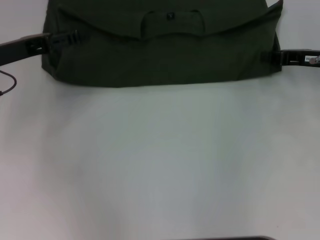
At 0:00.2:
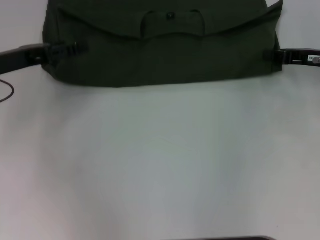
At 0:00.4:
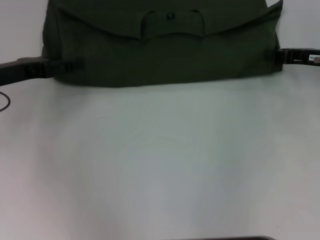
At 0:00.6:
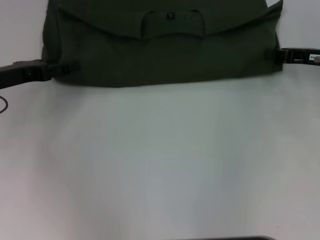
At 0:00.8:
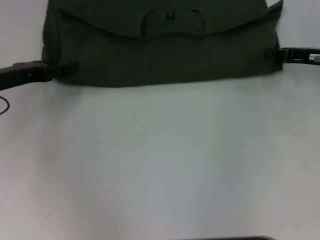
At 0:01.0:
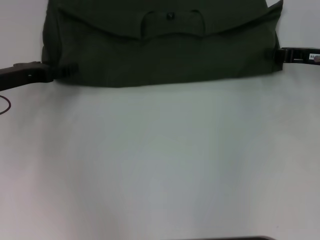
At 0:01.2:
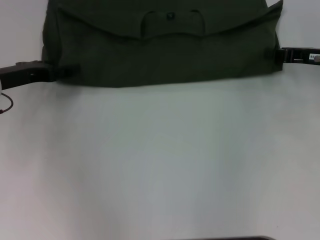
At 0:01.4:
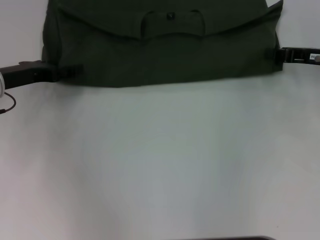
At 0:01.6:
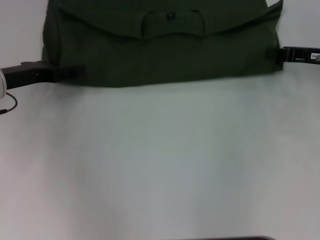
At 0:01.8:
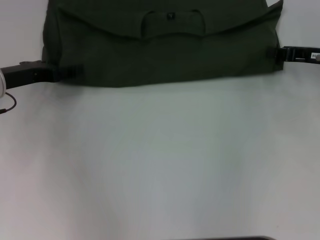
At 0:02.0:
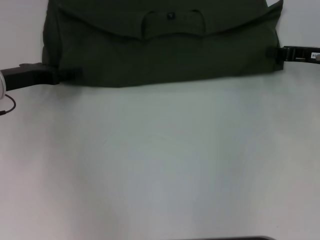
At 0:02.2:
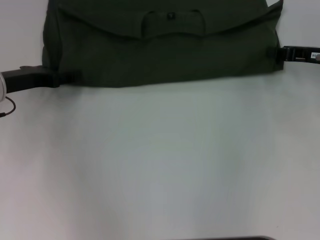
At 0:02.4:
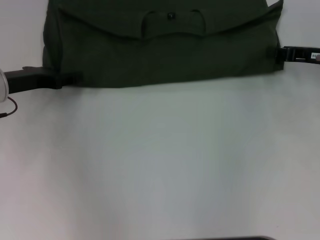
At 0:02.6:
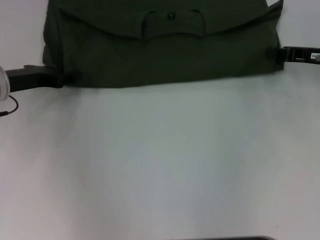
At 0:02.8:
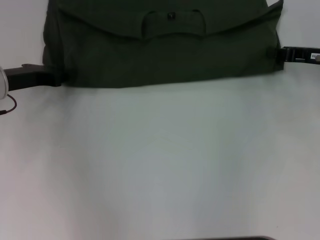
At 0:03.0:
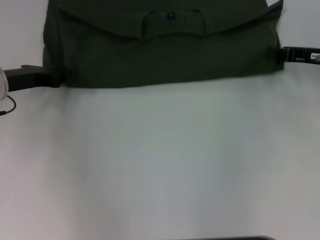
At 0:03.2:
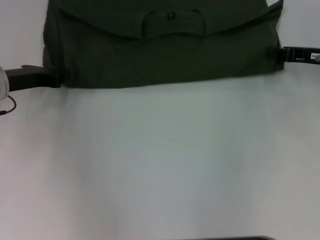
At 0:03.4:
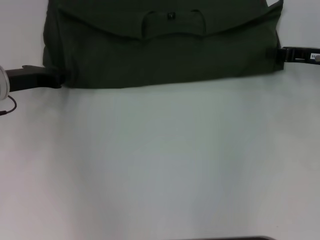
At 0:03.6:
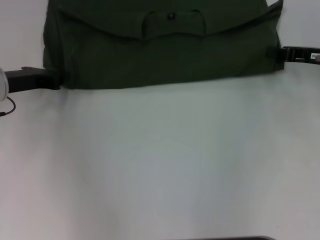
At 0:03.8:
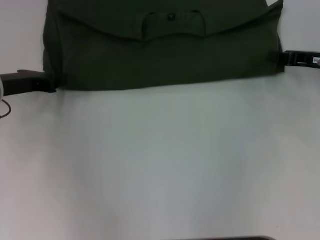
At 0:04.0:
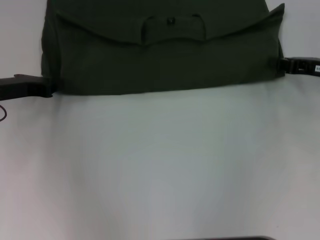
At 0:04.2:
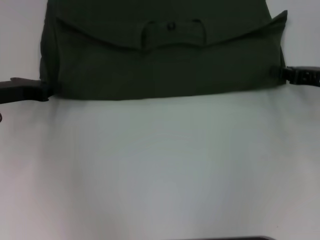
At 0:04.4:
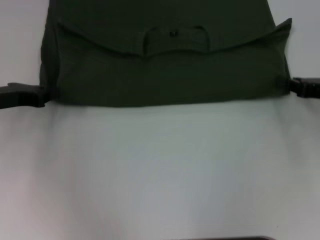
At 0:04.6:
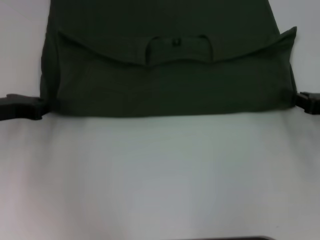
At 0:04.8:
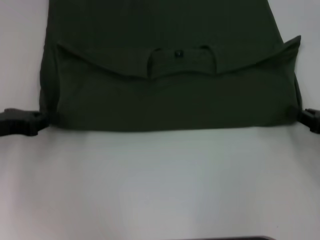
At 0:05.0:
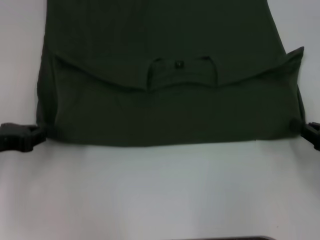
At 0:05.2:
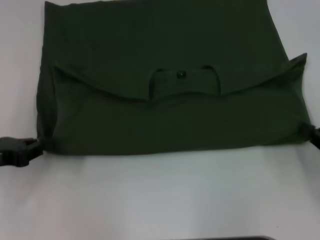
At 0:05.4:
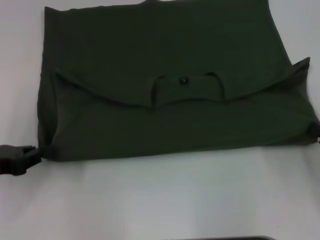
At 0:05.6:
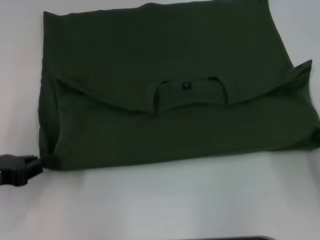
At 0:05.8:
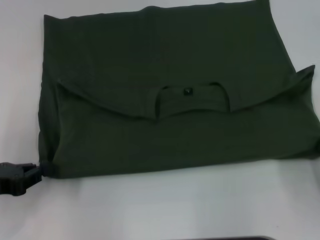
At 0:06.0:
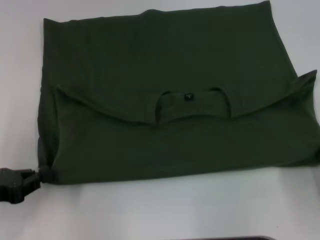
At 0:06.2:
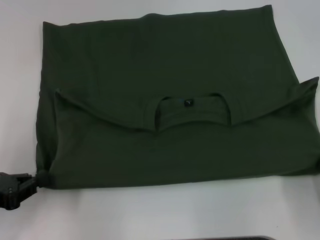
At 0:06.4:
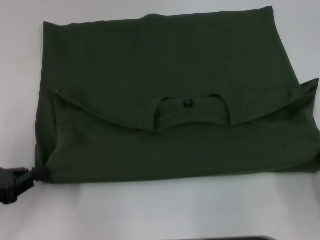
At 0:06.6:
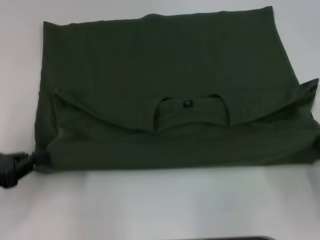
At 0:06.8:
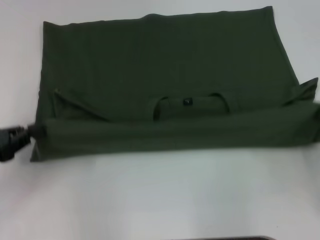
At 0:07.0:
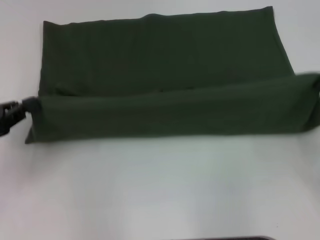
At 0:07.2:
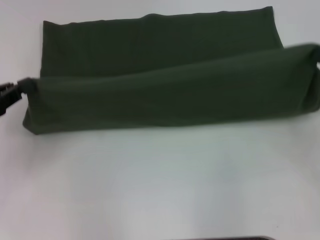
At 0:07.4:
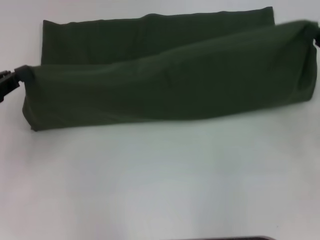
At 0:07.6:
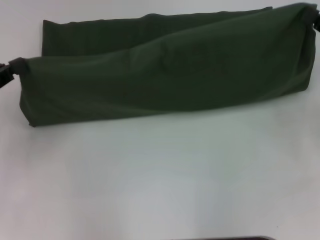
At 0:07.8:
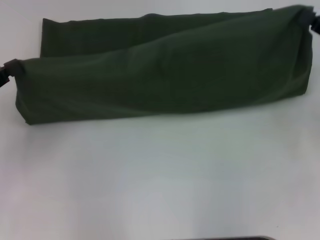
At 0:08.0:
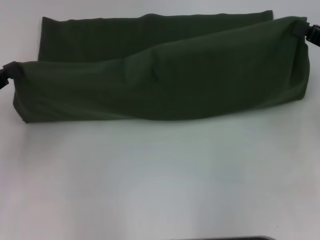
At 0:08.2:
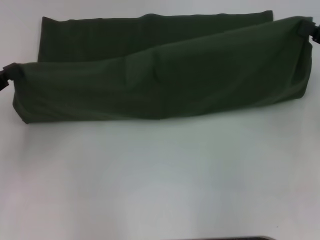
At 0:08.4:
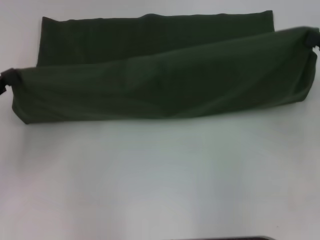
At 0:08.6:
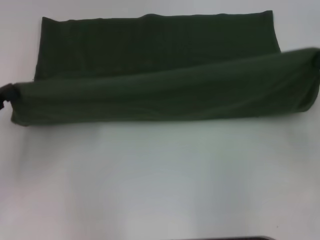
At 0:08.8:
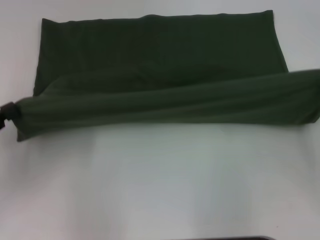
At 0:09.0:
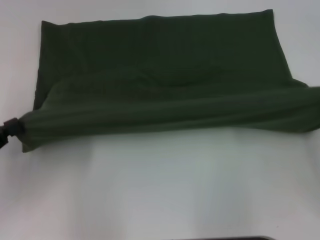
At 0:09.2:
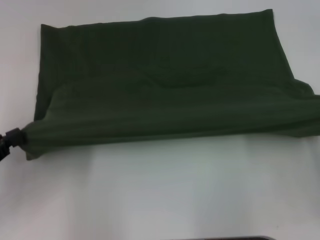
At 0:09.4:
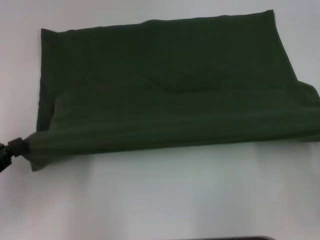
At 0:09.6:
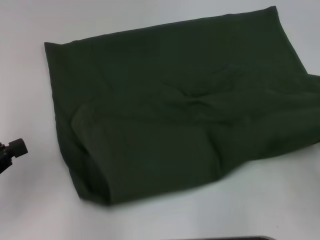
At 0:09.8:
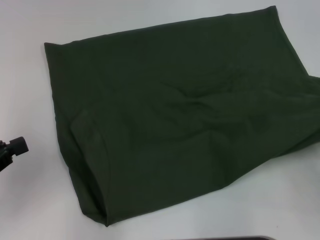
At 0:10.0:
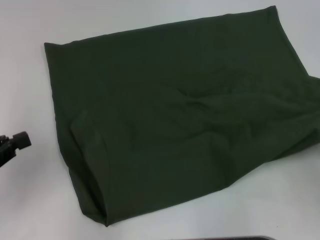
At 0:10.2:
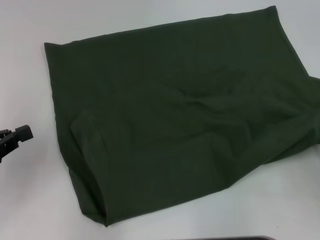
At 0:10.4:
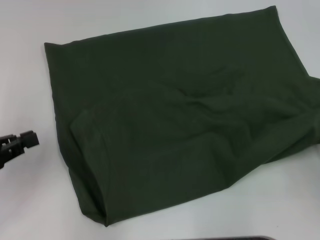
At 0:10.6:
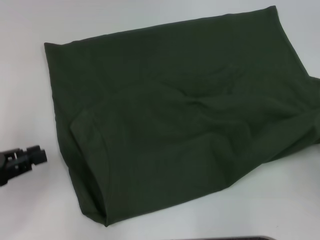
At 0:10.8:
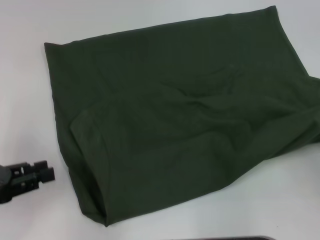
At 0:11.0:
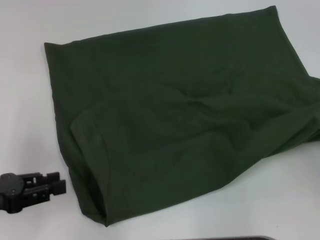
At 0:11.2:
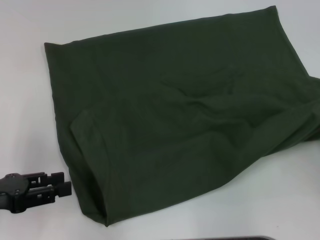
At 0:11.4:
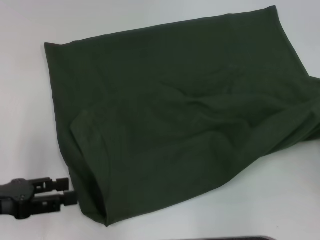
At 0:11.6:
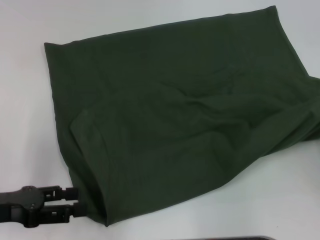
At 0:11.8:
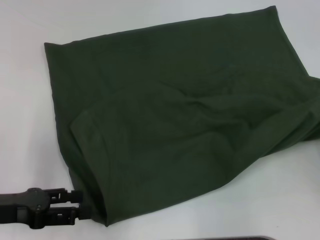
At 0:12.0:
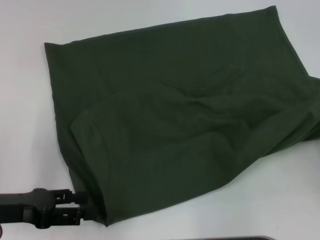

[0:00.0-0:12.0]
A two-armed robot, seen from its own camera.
Step, 0:00.0 to 0:06.0: Pull the clothes with your left hand.
Step, 0:00.0 to 0:06.0: Pull the clothes with your right hand.
0:00.0 to 0:01.6: There are only small adjustments of the grippers.
0:01.6 to 0:03.0: The left gripper closes up.
0:03.0 to 0:04.4: The left gripper closes its fingers; the right gripper goes about 5 cm backward.
0:04.4 to 0:06.0: Both grippers move backward, approximately 15 cm.
0:06.0 to 0:07.6: The left gripper shifts some 10 cm forward and upward. The right gripper goes approximately 20 cm forward and upward.
0:07.6 to 0:09.0: The right gripper goes roughly 10 cm backward; the left gripper heads backward, covering approximately 5 cm.
0:10.4 to 0:12.0: The left gripper heads to the right, covering roughly 5 cm, and opens its fingers.

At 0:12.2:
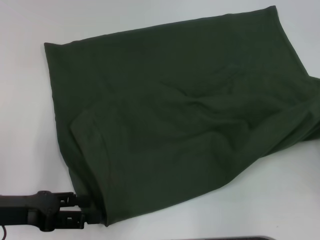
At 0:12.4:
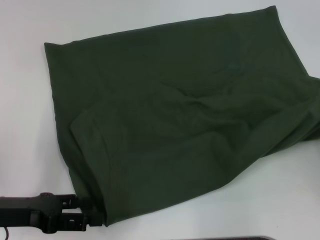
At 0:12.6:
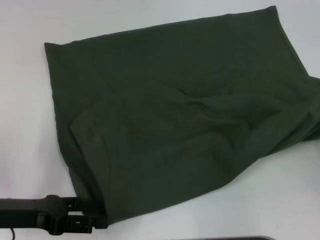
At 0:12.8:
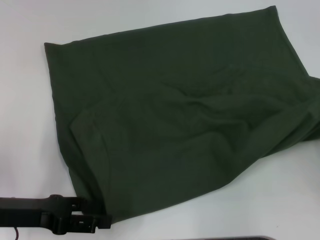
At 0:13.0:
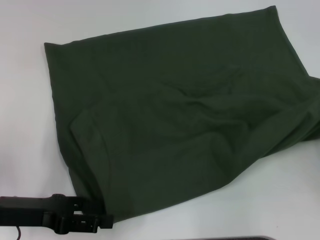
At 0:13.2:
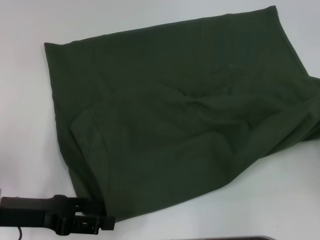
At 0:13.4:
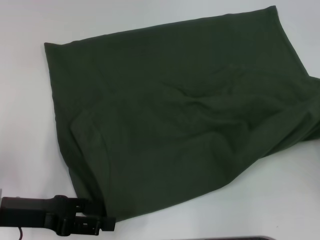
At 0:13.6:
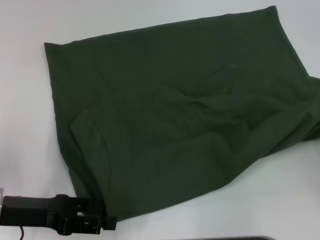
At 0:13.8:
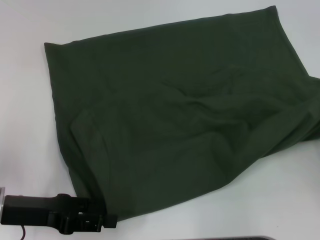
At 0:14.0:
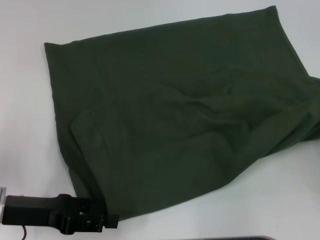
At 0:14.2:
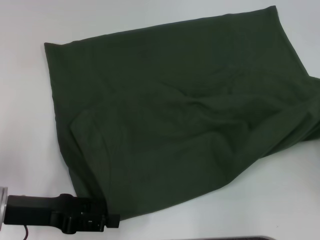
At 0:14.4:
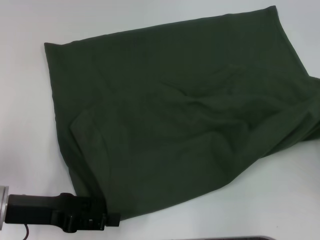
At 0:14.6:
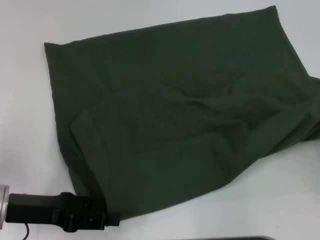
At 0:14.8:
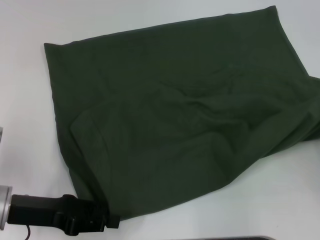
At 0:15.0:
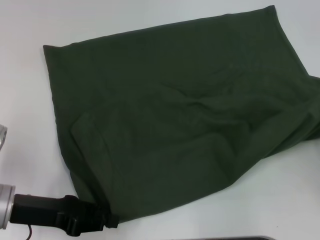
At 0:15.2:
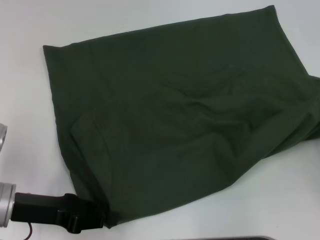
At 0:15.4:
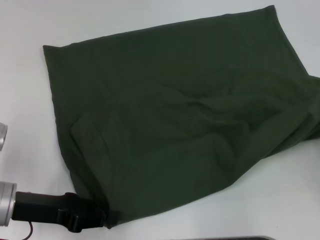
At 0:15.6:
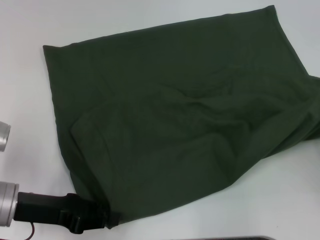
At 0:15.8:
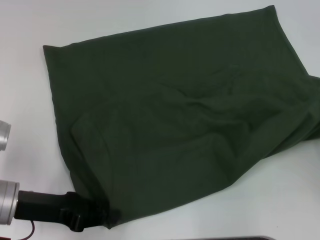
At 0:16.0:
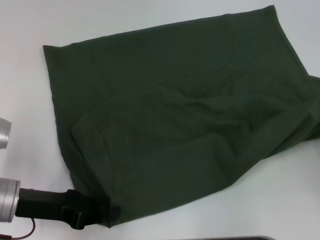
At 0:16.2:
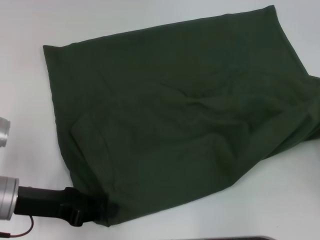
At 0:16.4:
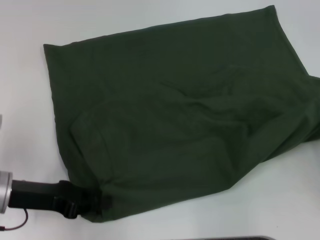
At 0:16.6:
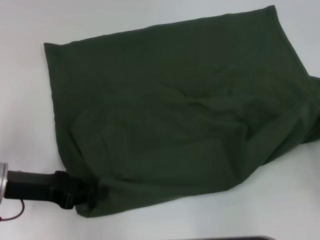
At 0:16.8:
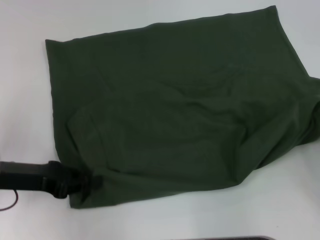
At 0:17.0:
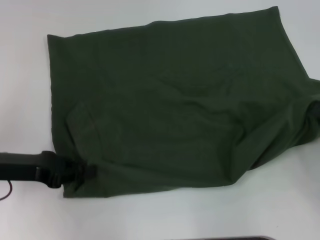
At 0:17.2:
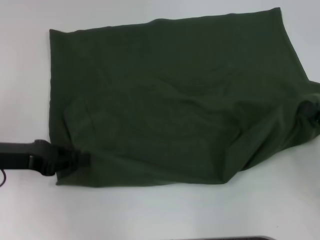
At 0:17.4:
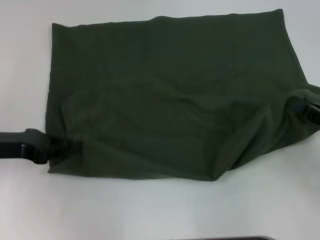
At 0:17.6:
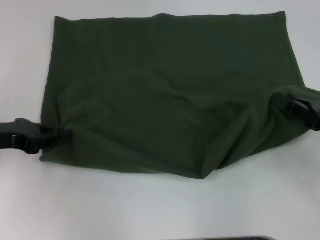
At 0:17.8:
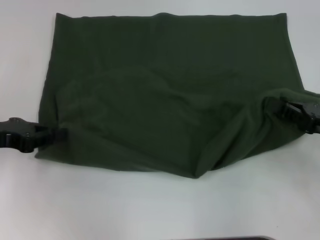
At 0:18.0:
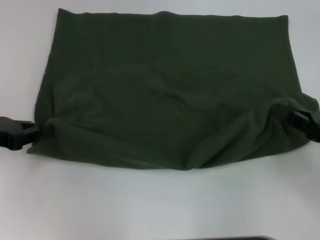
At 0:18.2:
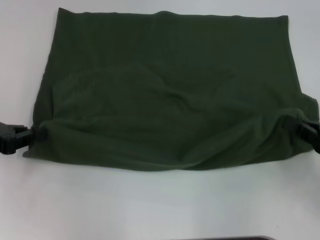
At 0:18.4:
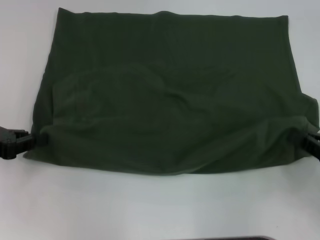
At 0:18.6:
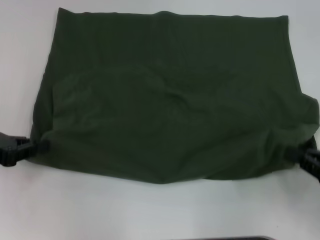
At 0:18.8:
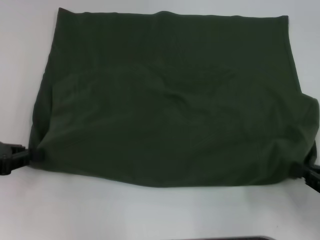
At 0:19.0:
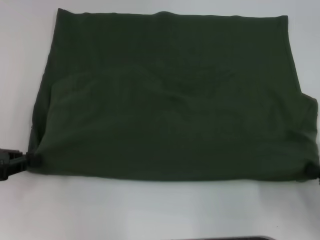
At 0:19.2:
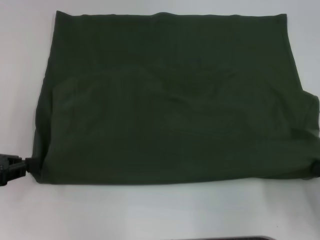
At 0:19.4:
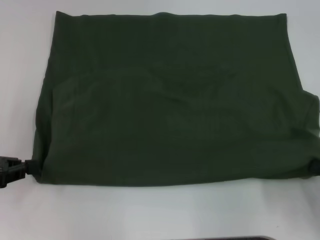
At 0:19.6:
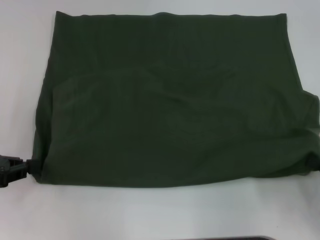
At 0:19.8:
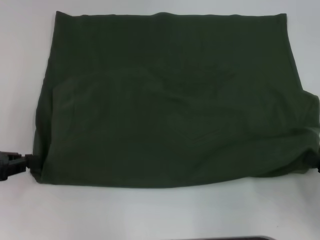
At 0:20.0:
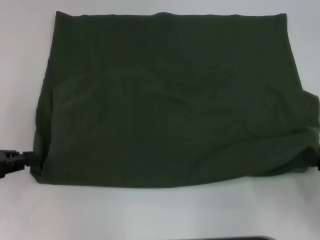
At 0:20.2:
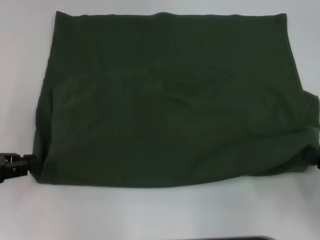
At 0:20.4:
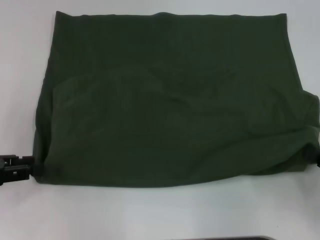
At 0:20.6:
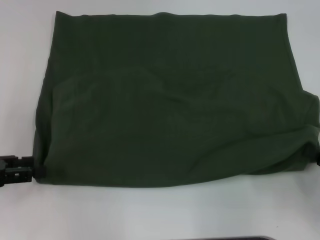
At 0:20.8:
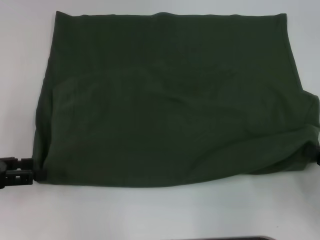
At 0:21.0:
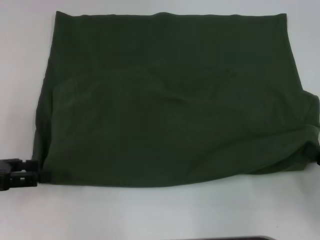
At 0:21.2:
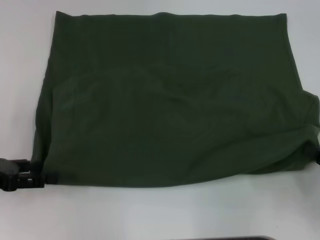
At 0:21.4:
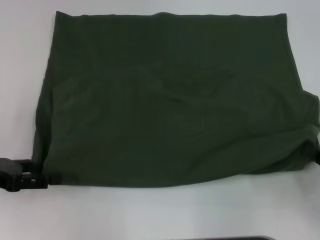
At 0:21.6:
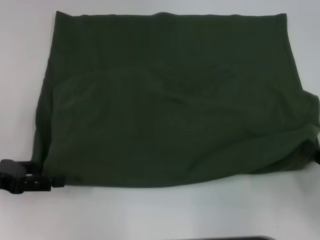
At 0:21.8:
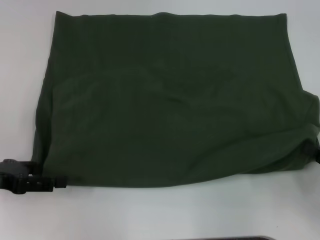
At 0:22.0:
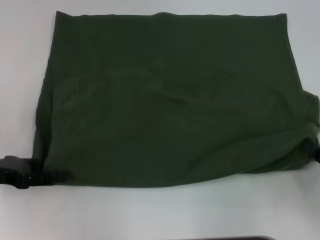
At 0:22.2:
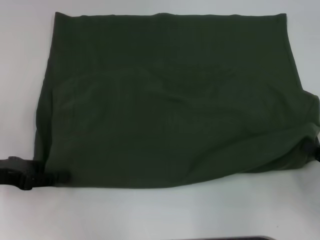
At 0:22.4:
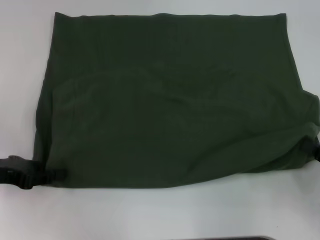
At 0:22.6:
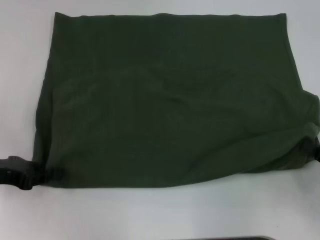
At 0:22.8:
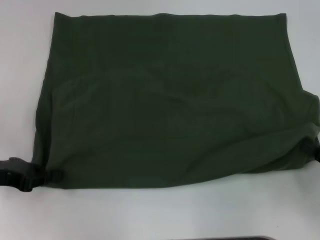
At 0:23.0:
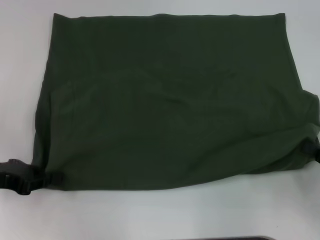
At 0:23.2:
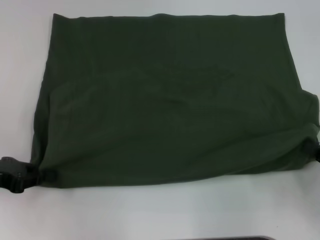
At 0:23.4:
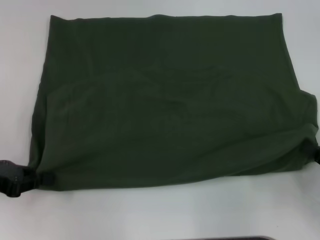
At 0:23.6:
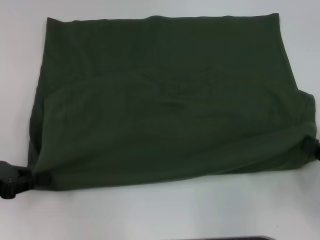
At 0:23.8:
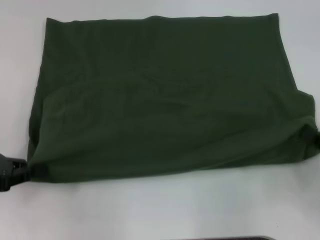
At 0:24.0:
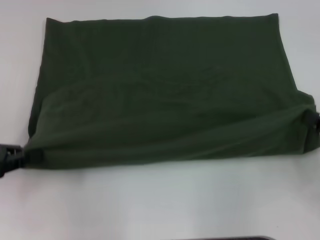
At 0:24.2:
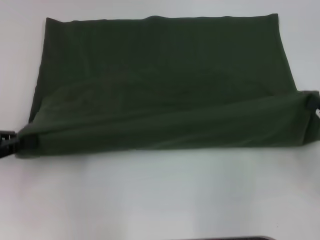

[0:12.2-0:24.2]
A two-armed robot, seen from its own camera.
0:12.2 to 0:13.8: There are only small adjustments of the grippers.
0:13.8 to 0:15.2: The left gripper closes.
0:15.2 to 0:16.6: The grippers move only a little.
0:16.6 to 0:18.2: The left gripper goes about 10 cm to the left.
0:18.2 to 0:19.8: The right gripper is displaced backward by some 5 cm.
0:19.8 to 0:21.2: The left gripper opens its fingers.
0:21.2 to 0:22.6: The left gripper closes up.
0:22.6 to 0:24.2: The left gripper moves some 5 cm. The right gripper changes place by about 5 cm.
